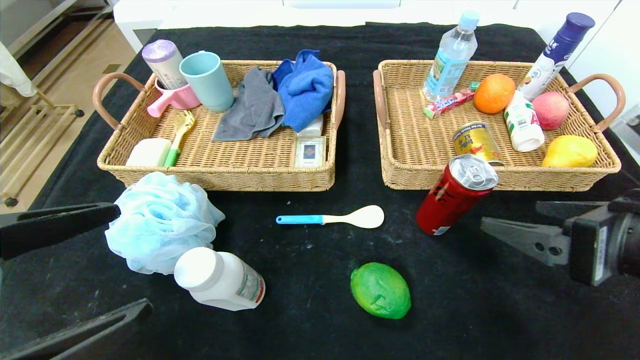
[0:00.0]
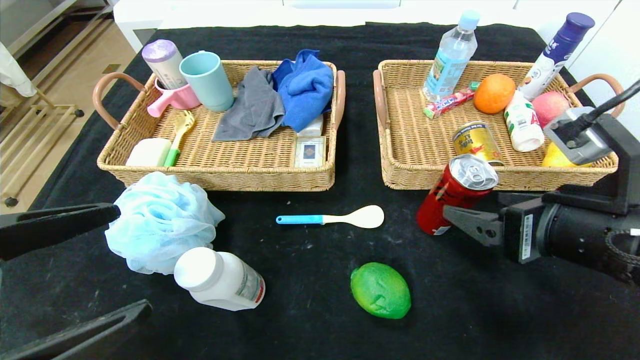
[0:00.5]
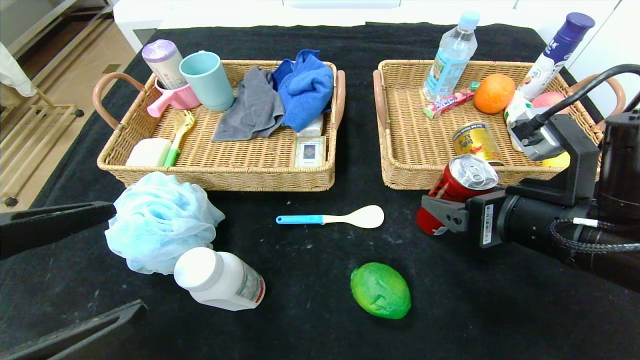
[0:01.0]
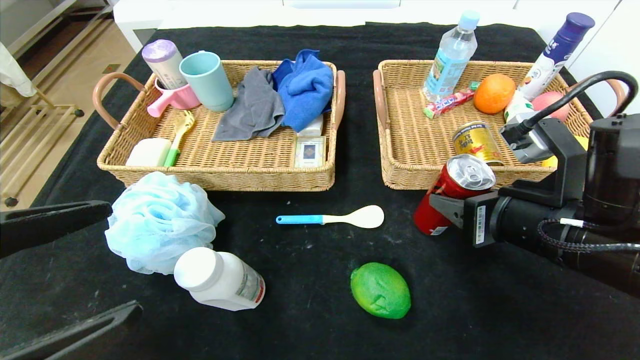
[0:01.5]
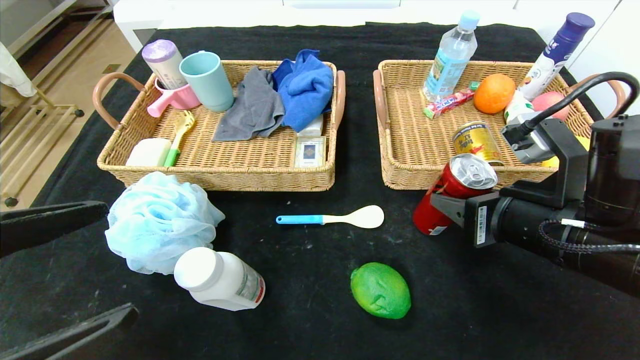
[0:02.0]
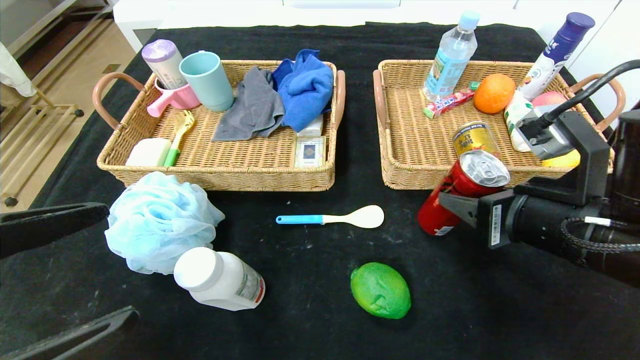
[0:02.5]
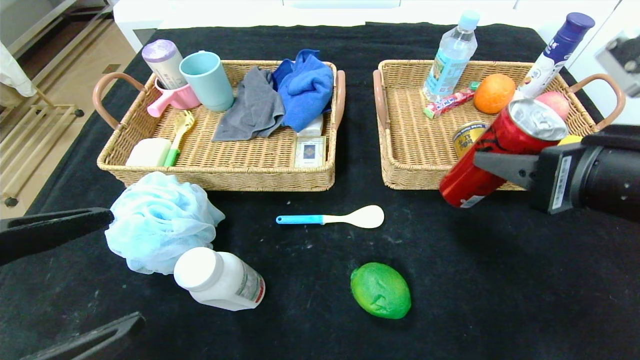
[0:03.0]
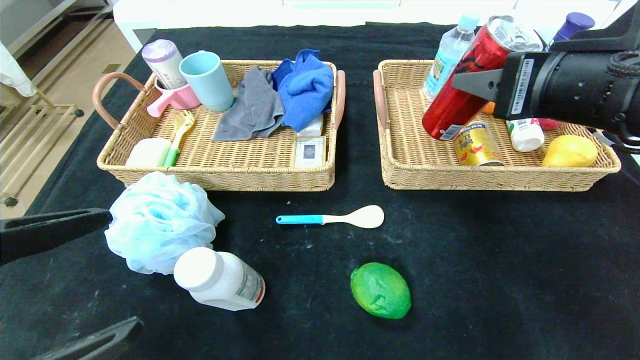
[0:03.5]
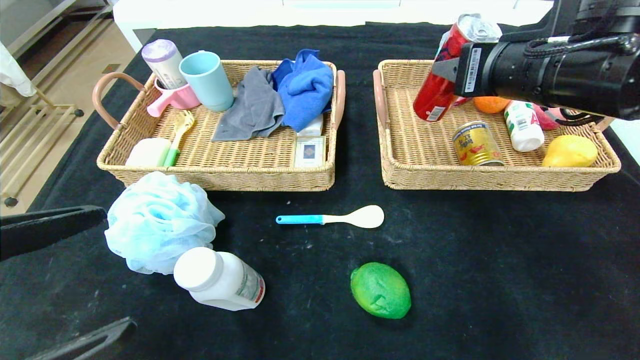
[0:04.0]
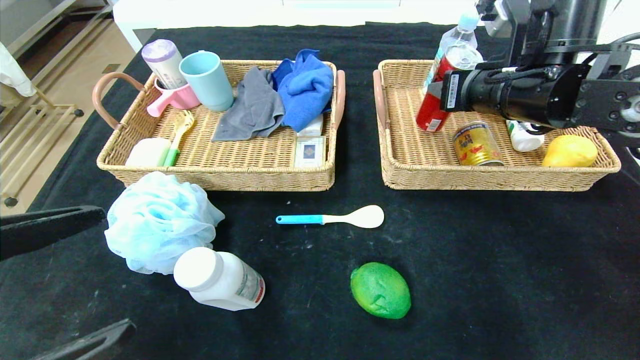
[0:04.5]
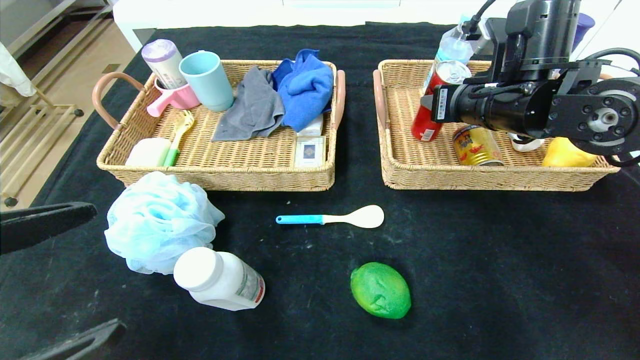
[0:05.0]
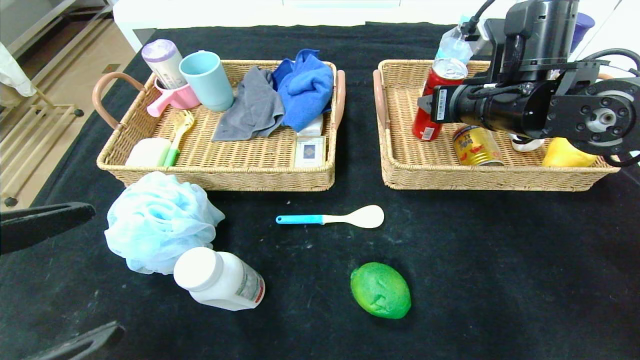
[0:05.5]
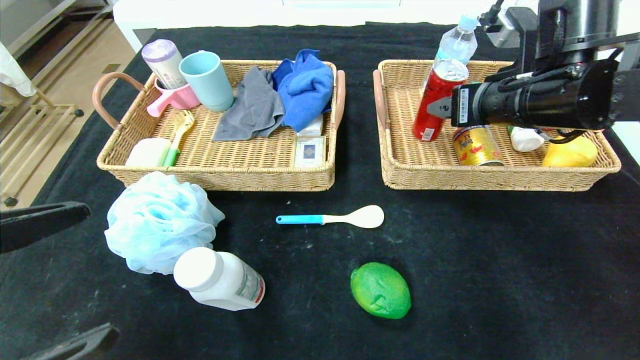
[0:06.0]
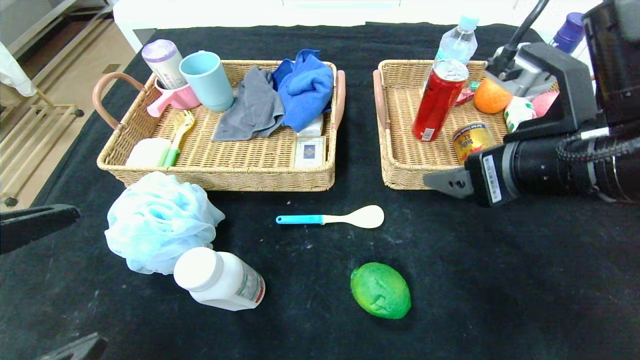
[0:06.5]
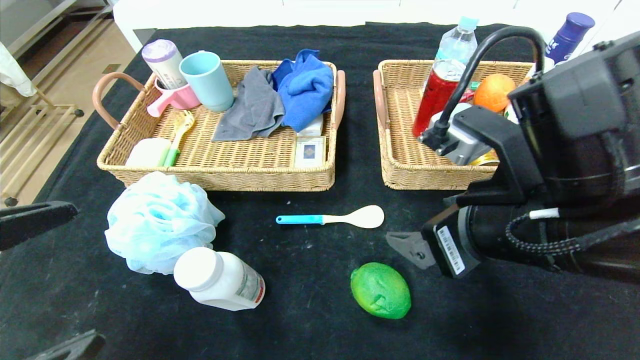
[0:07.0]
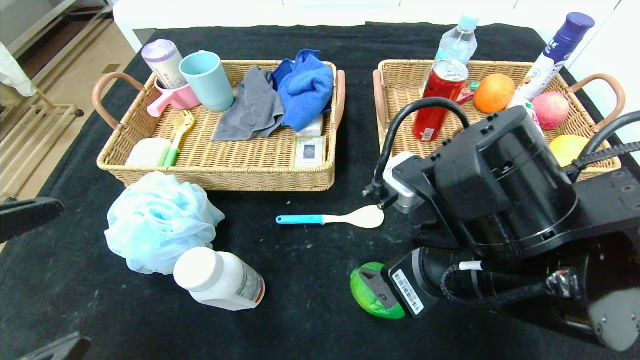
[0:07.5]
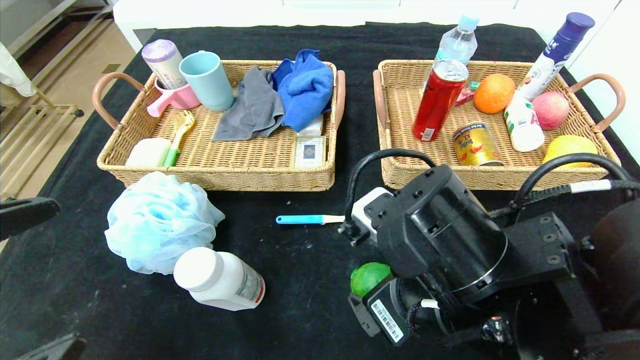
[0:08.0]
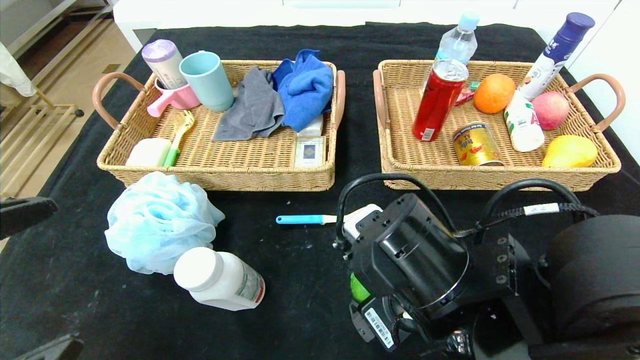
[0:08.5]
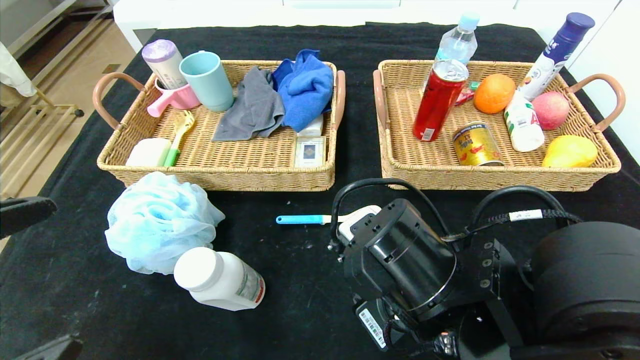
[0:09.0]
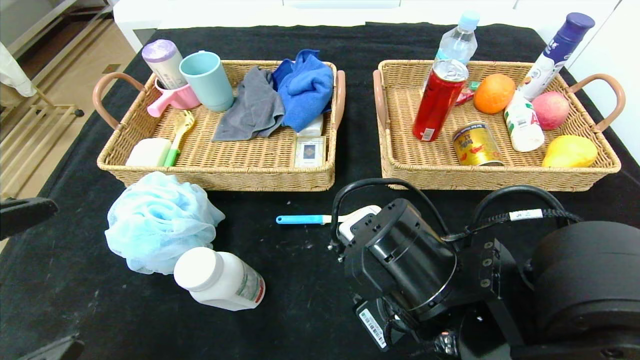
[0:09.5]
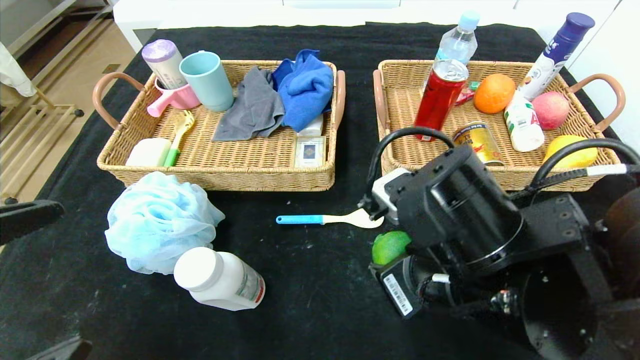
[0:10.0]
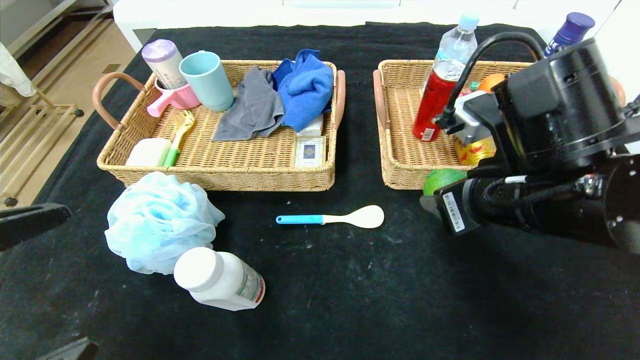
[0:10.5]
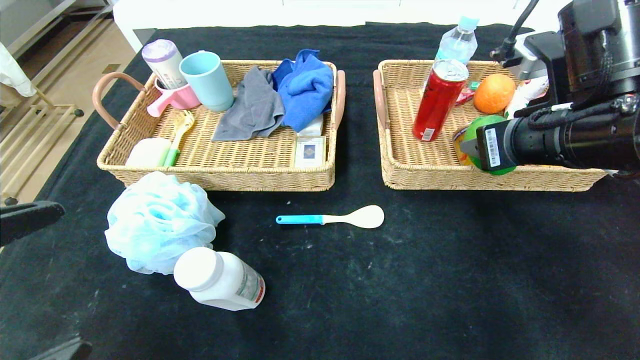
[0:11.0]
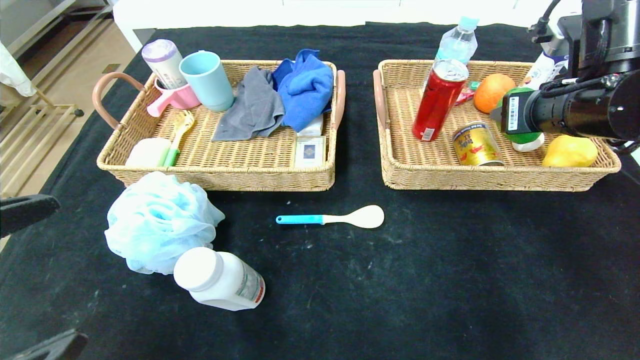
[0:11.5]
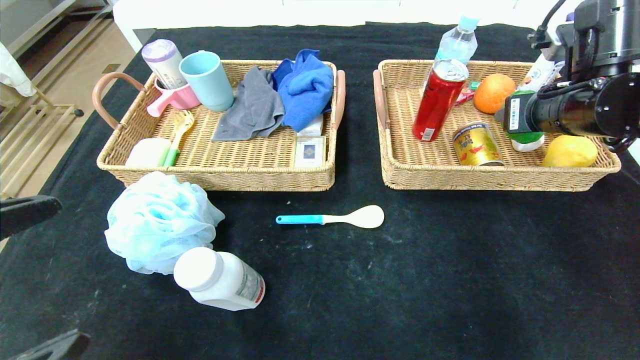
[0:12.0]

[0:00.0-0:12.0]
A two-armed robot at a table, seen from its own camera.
Step, 0:00.0 to 0:05.5: Grasp the canned cola and put it in the right basket.
0:00.0 to 0:02.0: The right gripper is displaced forward by approximately 5 cm, and closes.
0:02.0 to 0:04.0: The right gripper shifts about 15 cm upward and forward.
0:04.0 to 0:06.0: The right gripper opens up.
0:06.0 to 0:08.0: The right gripper moves backward, to the left and downward, some 20 cm.
0:08.0 to 0:10.0: The right gripper closes.
0:10.0 to 0:12.0: The right gripper is displaced to the right, forward and upward by some 25 cm.

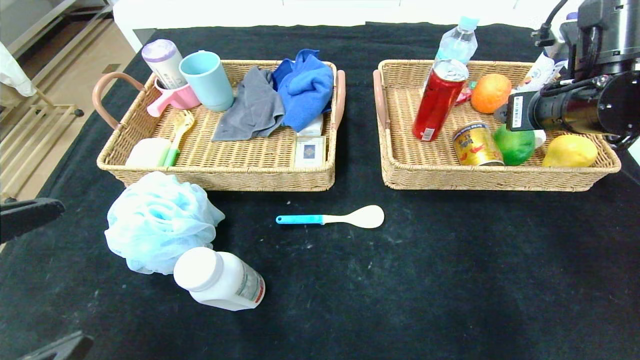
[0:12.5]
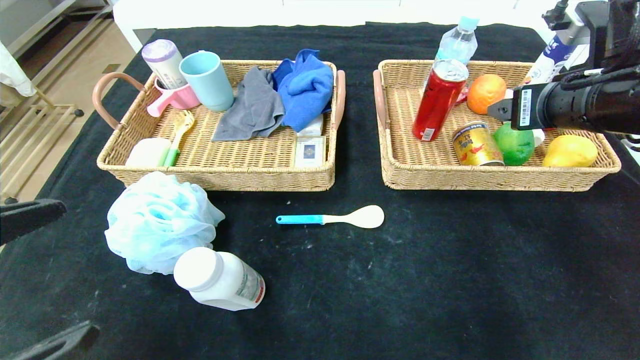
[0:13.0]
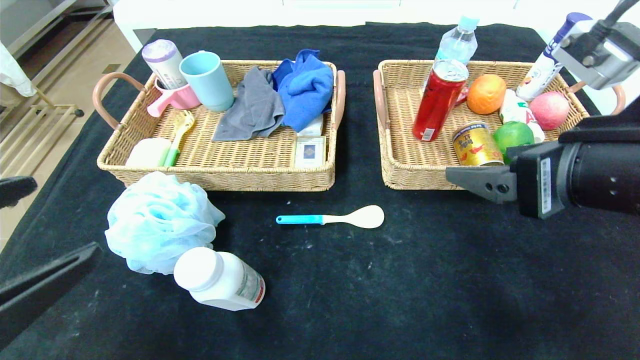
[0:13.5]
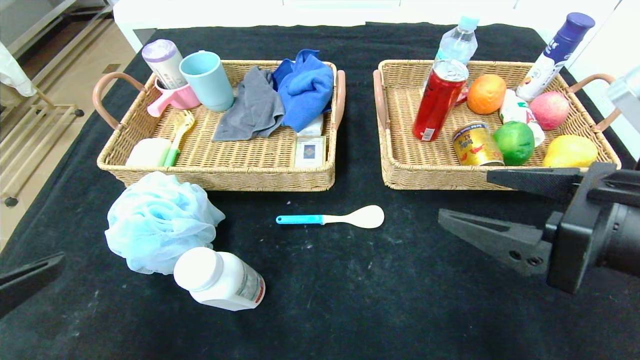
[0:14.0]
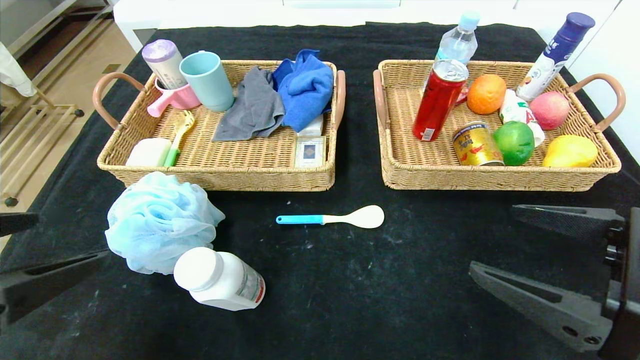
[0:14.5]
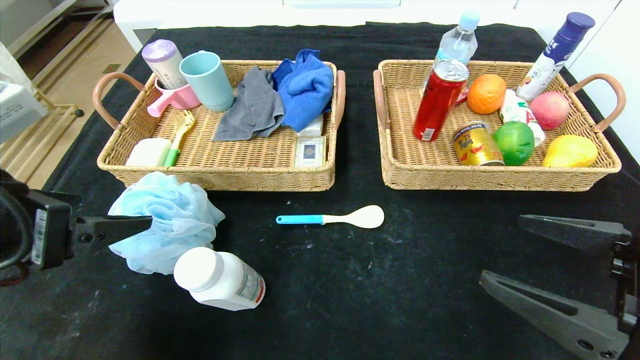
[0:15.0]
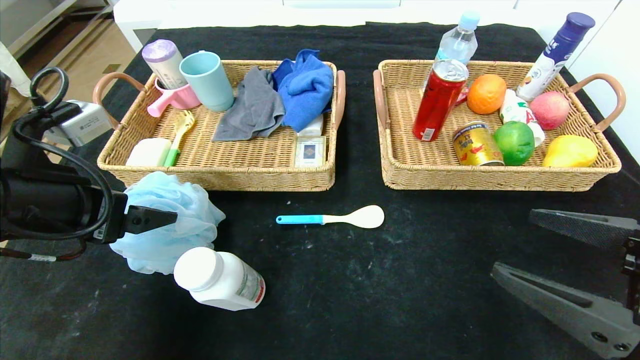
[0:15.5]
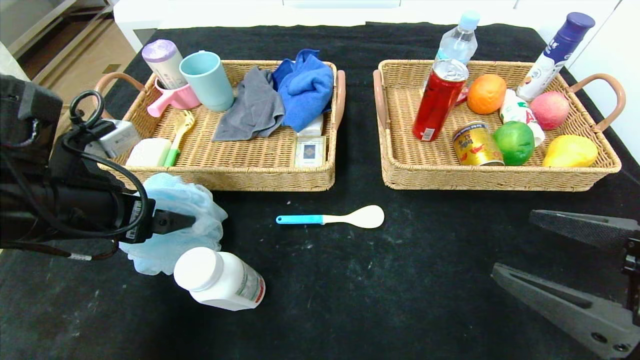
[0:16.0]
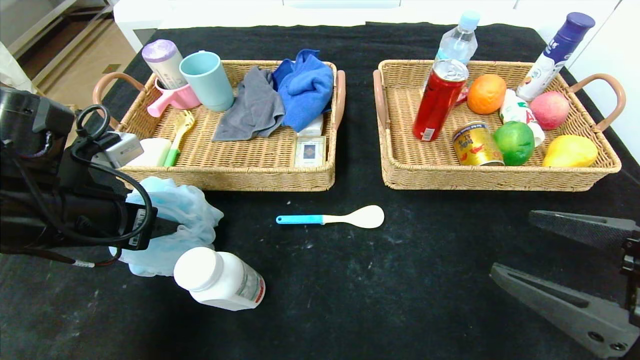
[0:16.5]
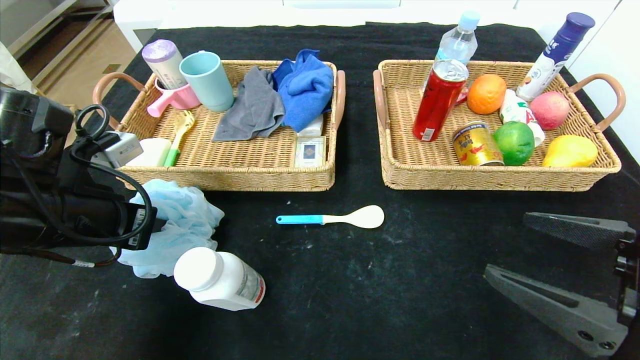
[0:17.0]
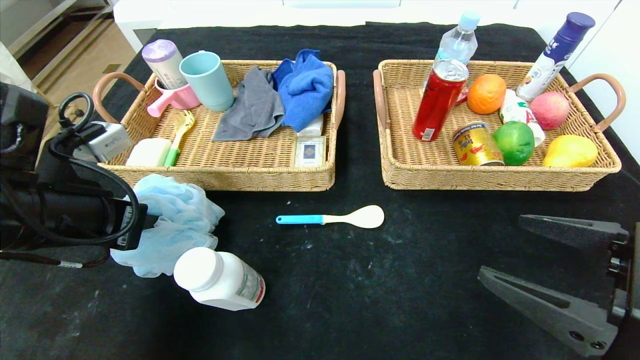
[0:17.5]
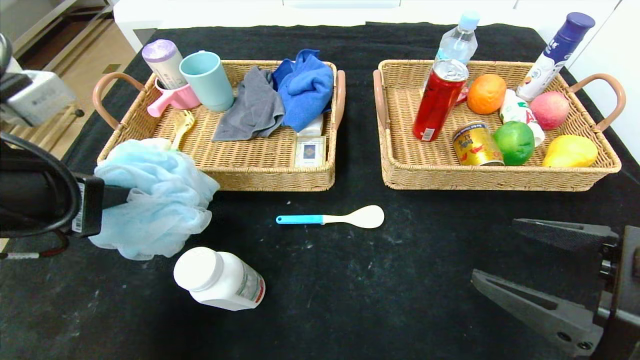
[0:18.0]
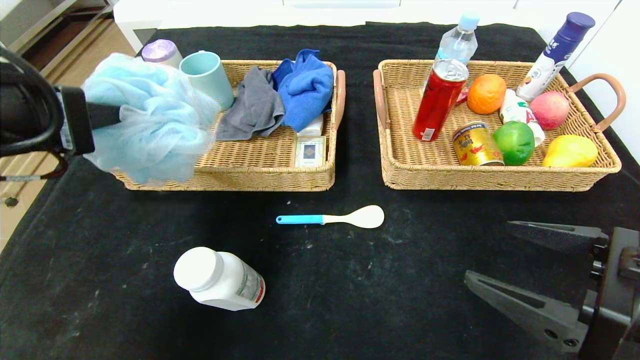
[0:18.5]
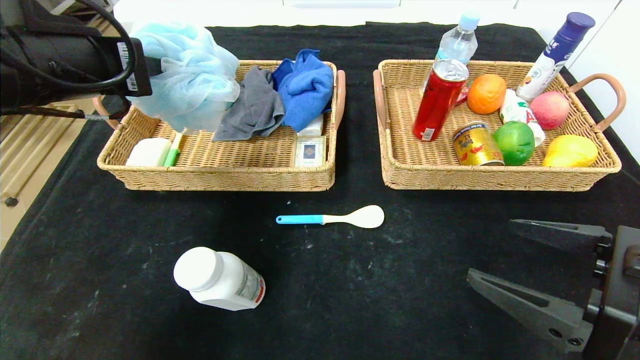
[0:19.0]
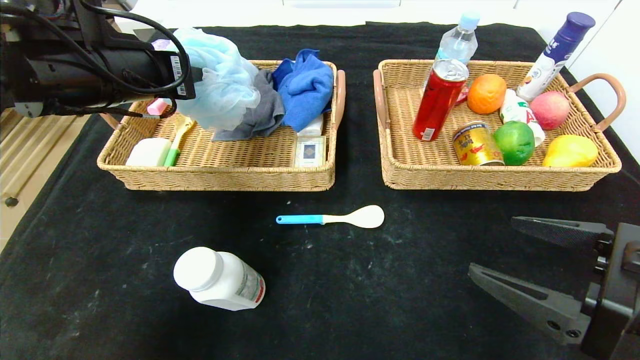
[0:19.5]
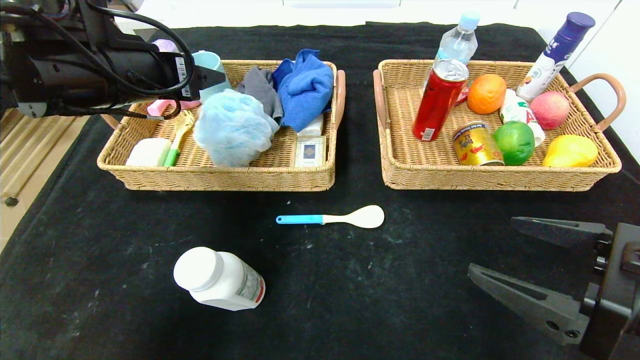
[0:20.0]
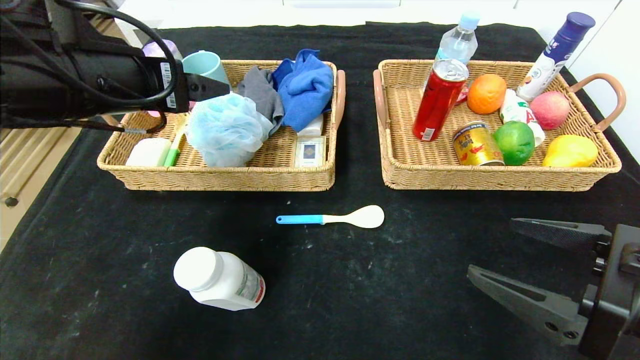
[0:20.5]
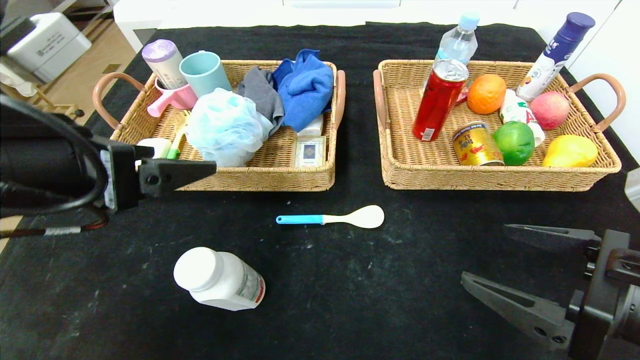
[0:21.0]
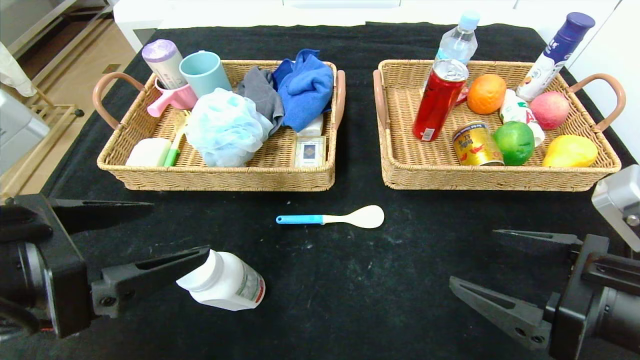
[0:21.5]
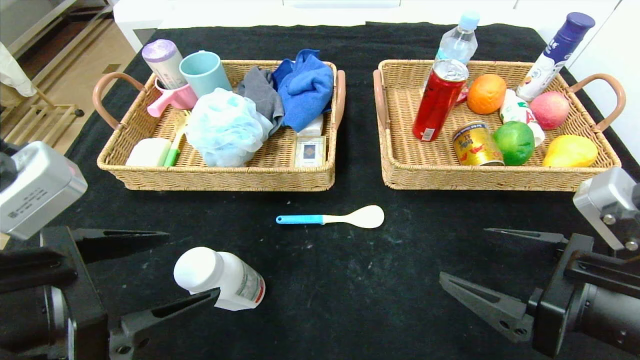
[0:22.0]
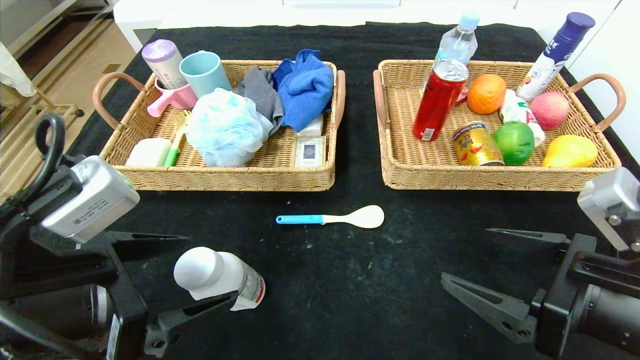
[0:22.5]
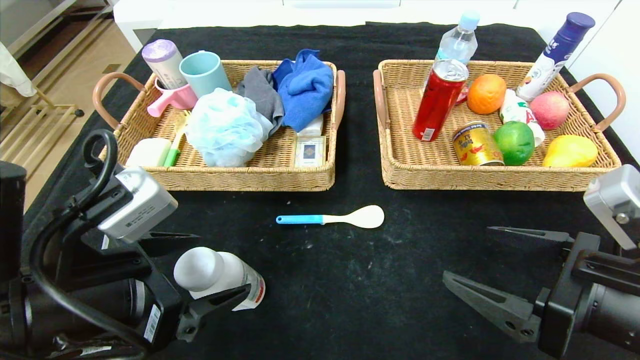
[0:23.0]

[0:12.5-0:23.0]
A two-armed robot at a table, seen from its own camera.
Step, 0:12.5 to 0:20.0: Grasp the bath ball and put it in the left basket.
0:12.5 to 0:14.5: The right gripper travels backward by roughly 20 cm, and opens its fingers.
0:14.5 to 0:16.5: The left gripper heads forward, covering approximately 15 cm, and closes.
0:16.5 to 0:19.0: The left gripper goes roughly 10 cm upward, and closes its fingers.
0:19.0 to 0:21.0: The left gripper travels backward and downward by about 10 cm, and opens its fingers.
0:21.0 to 0:23.0: The left gripper heads downward, covering about 10 cm.
